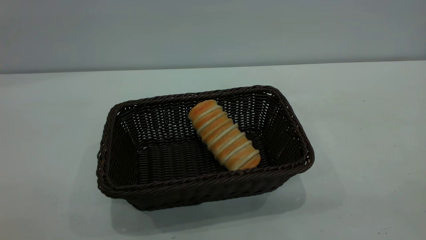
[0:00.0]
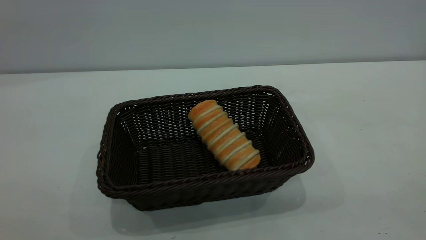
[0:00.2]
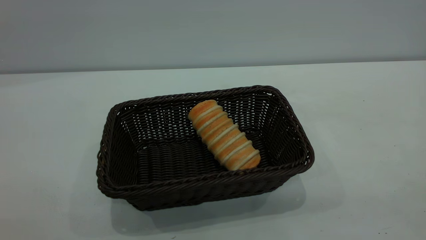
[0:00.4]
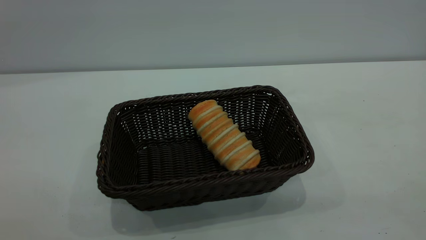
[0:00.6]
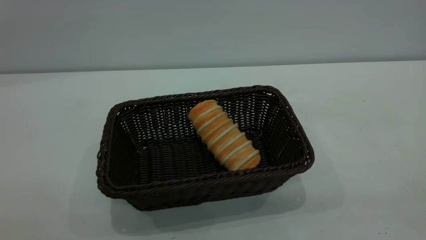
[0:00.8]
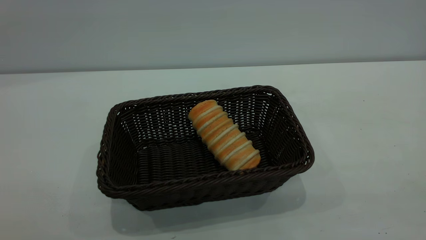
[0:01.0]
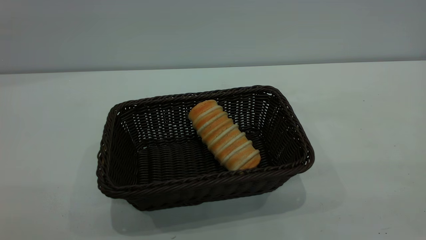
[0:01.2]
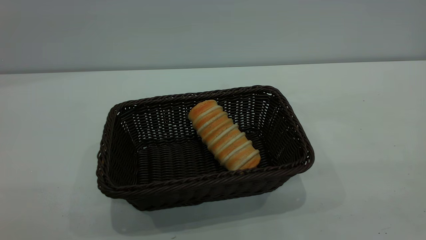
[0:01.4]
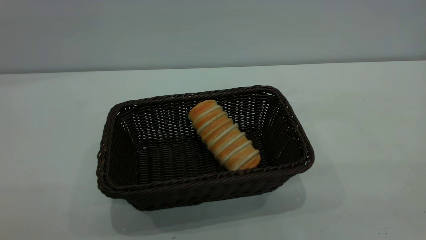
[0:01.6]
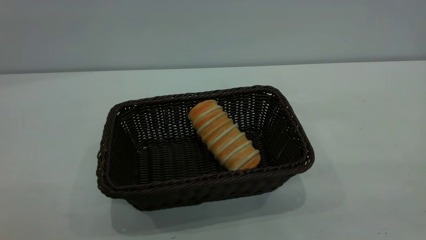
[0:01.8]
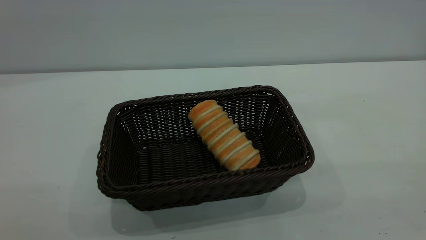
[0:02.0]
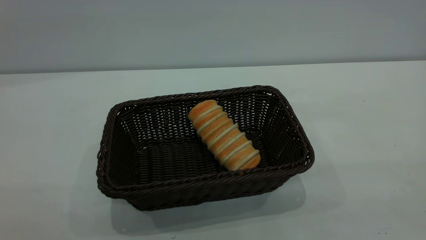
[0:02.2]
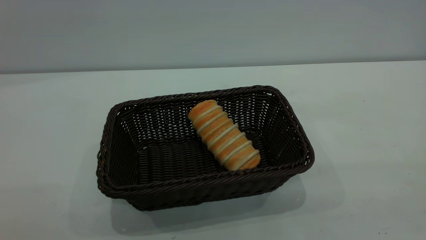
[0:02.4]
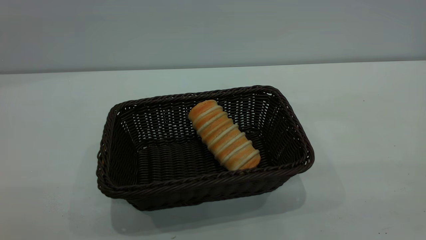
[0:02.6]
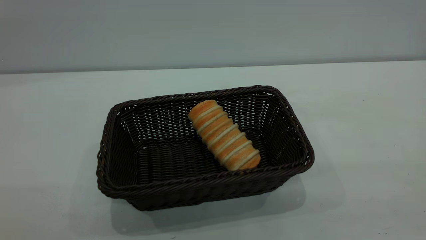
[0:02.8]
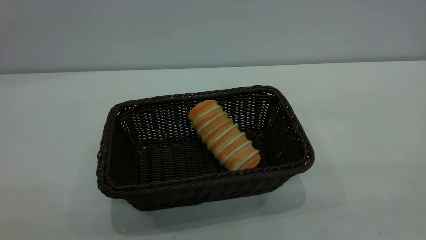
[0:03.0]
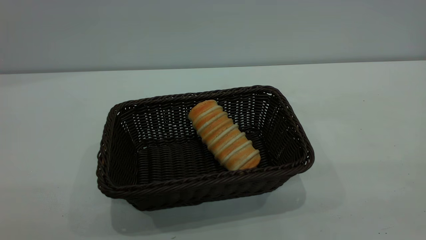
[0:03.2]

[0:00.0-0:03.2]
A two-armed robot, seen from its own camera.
Task of the whole recording: One hand grasps the black basket and places it in the middle of the table, while the other hand picks up the long bread and puts it into the black basket.
0:01.6 to 0:03.2: The two grippers keep their place.

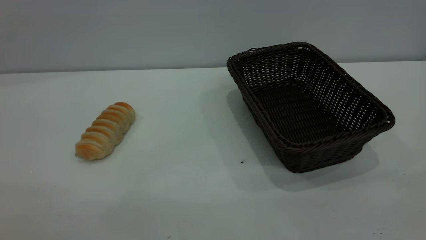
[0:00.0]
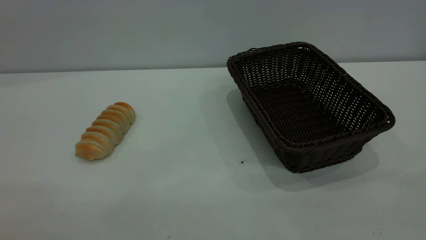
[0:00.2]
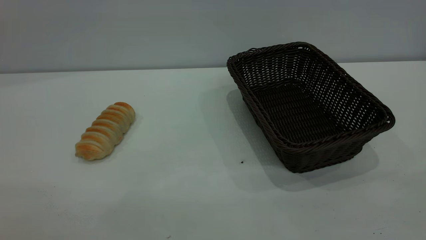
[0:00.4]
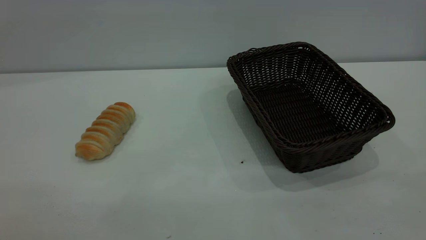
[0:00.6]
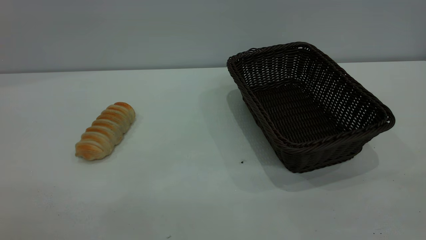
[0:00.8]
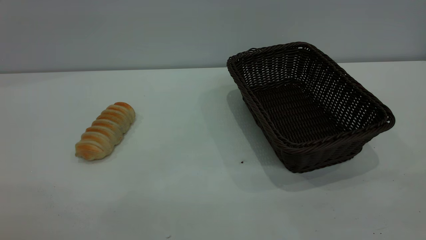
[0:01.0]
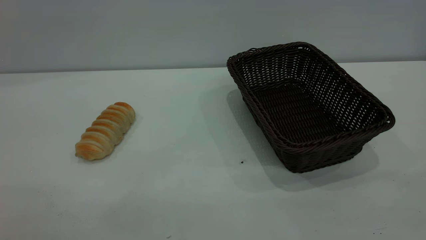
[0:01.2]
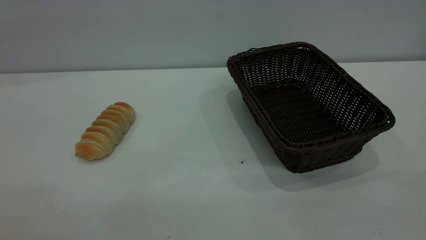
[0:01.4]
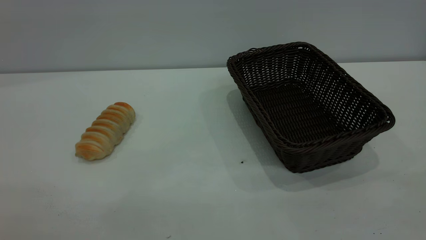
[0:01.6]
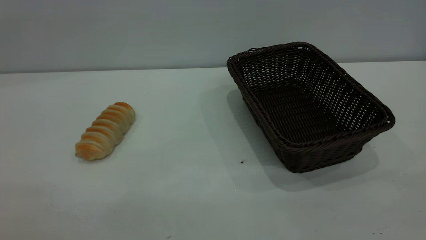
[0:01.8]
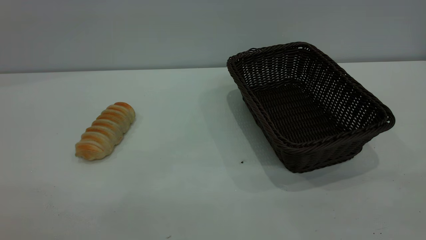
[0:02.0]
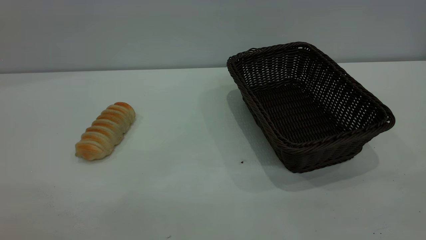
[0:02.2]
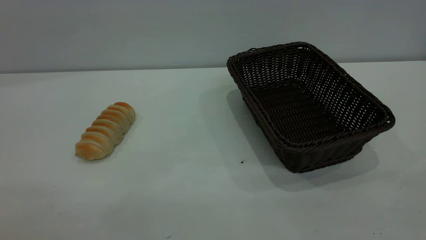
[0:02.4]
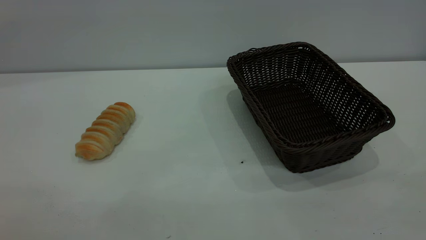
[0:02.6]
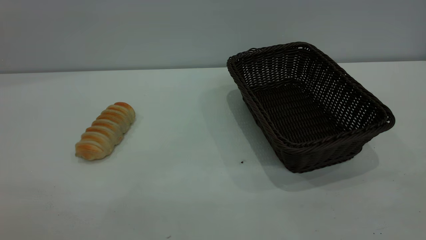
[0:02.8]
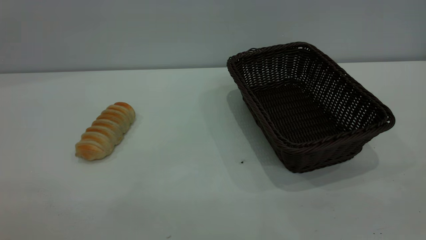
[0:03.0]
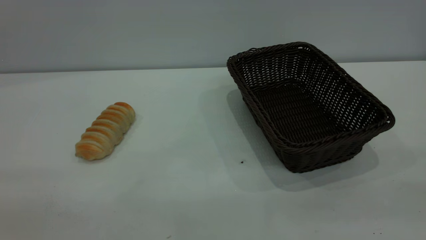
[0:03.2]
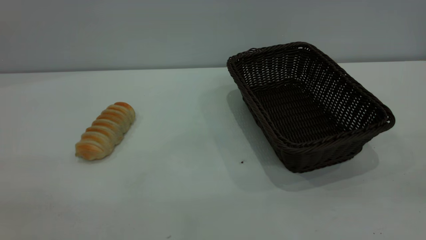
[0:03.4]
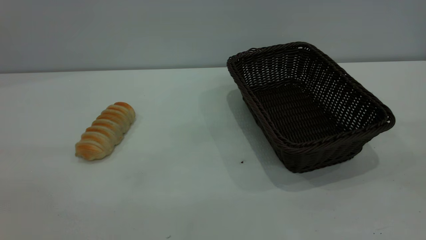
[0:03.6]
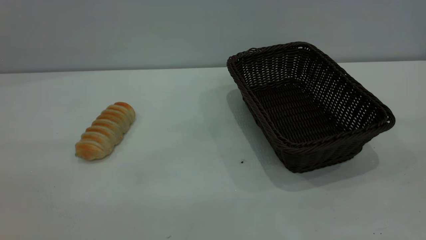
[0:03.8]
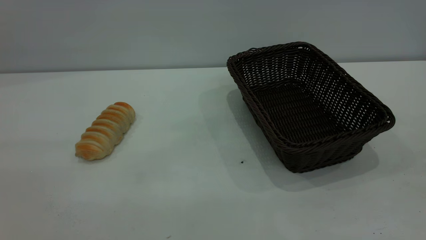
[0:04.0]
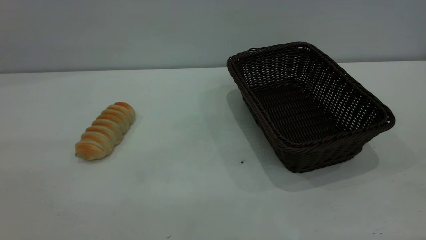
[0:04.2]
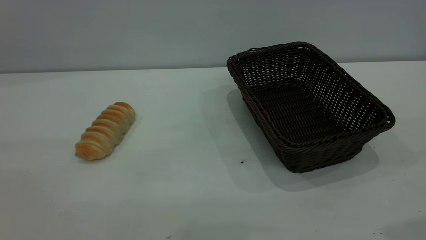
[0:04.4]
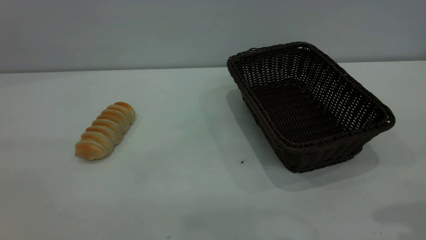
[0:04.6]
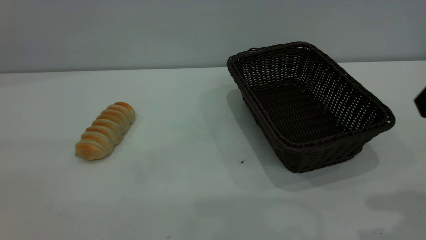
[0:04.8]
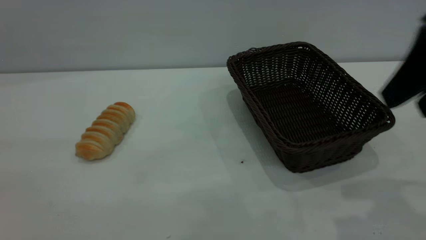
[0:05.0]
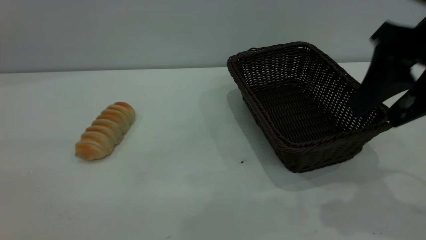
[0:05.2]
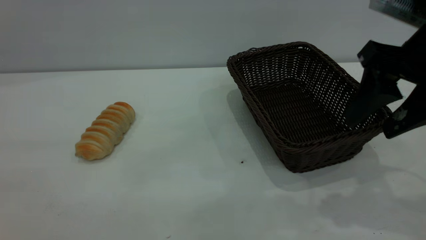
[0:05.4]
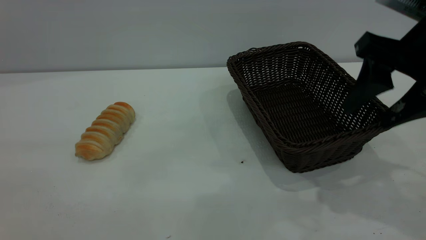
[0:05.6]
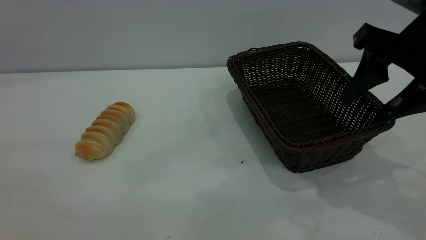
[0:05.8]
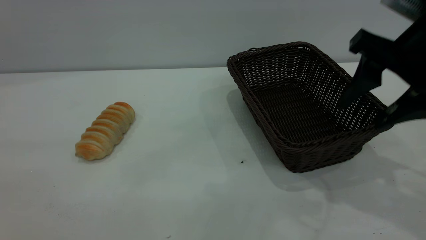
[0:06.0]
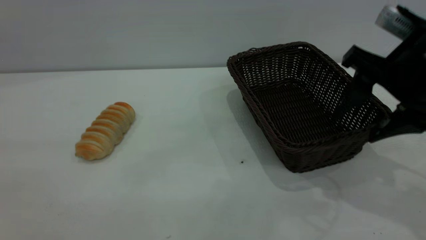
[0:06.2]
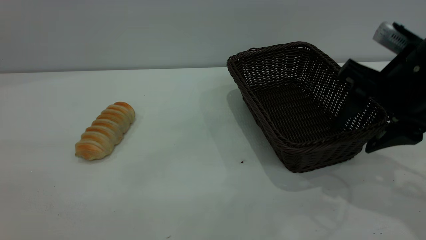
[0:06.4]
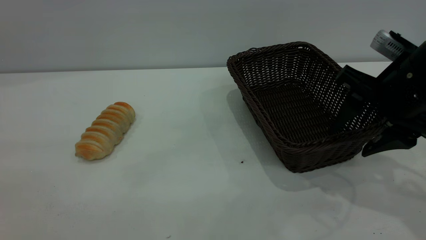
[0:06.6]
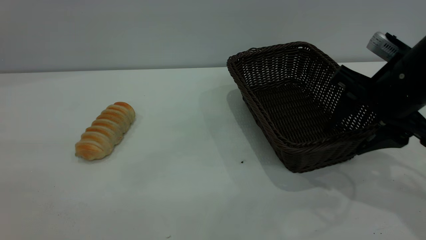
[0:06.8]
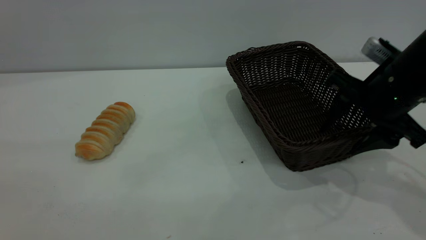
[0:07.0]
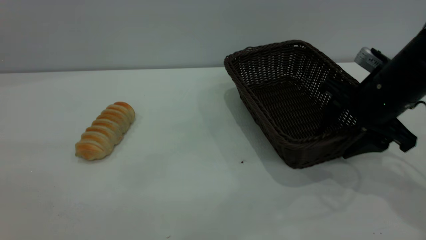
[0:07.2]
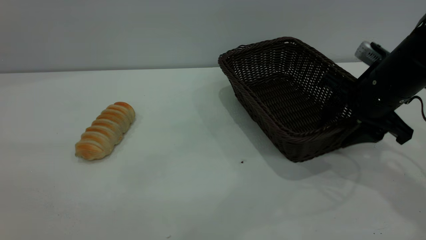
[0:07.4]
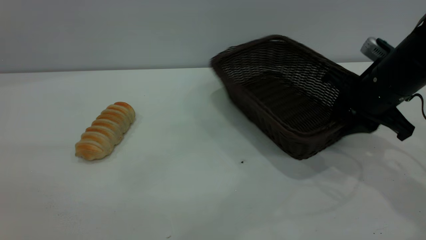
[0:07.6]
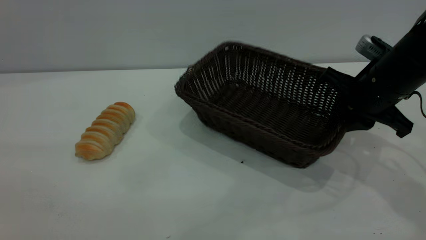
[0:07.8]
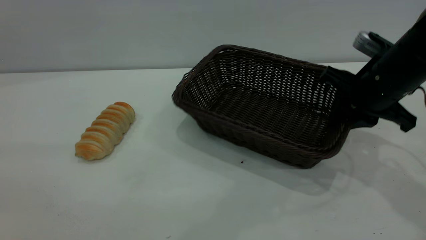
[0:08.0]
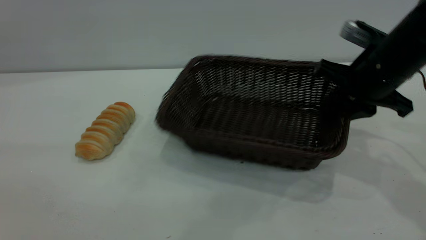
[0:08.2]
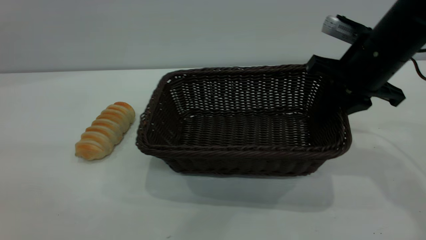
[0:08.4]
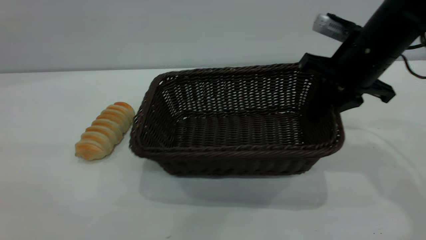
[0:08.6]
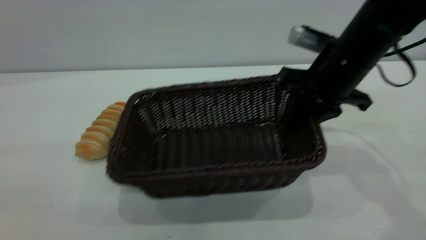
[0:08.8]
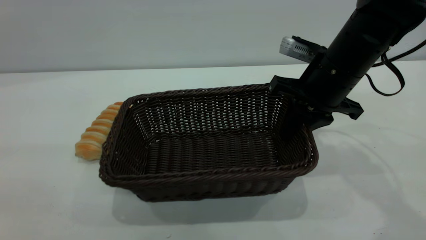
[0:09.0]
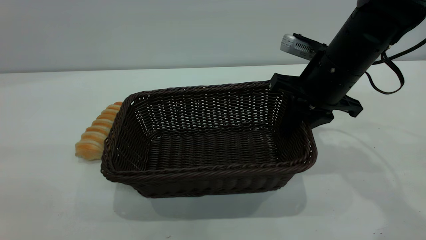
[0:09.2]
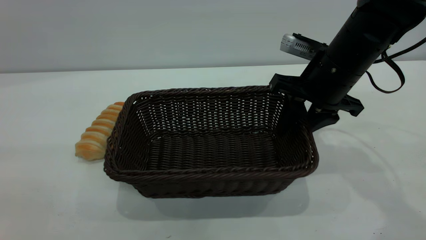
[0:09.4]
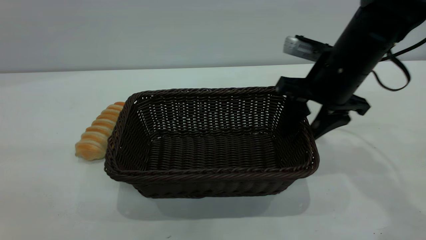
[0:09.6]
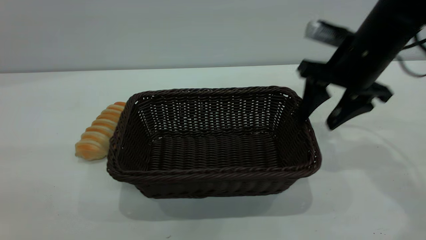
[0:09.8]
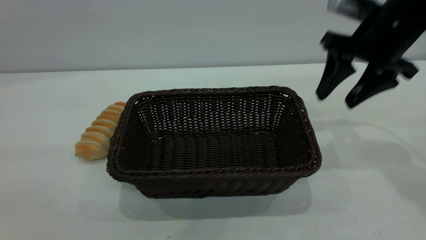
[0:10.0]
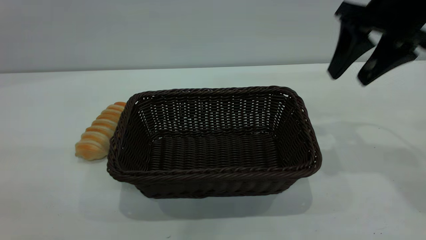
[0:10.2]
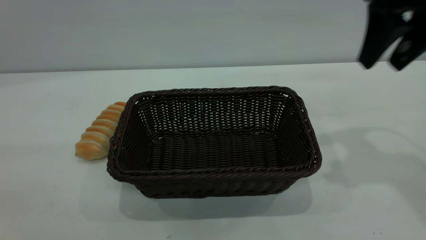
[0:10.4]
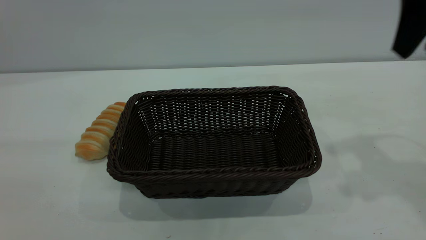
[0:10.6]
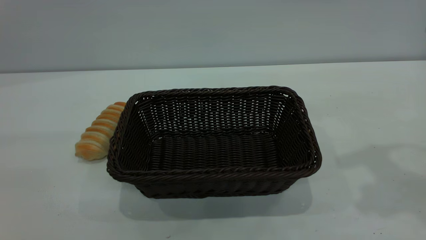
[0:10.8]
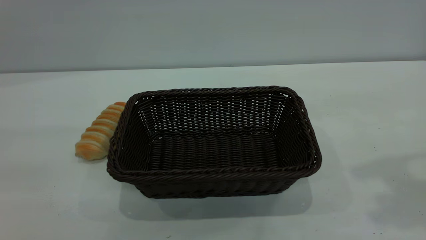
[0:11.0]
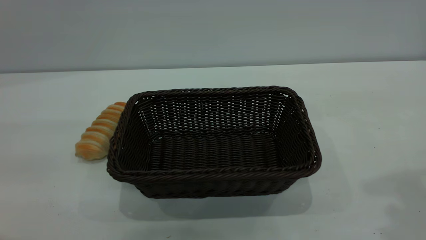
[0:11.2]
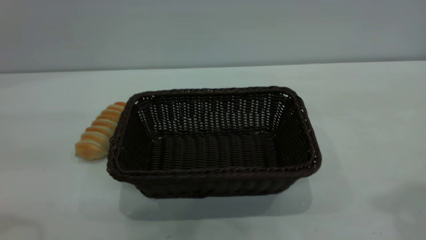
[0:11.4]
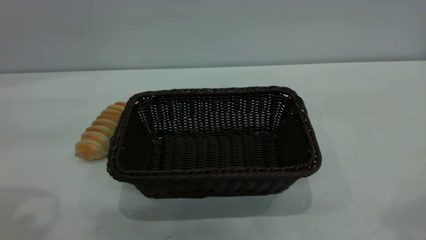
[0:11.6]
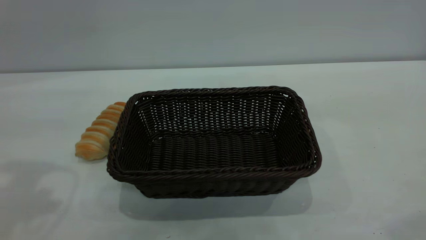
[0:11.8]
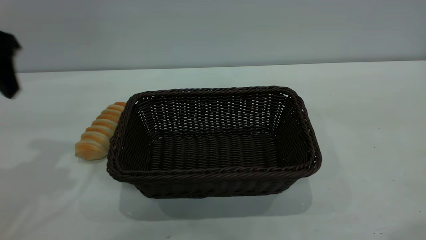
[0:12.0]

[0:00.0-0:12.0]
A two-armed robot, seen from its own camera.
Task of the whole recording: One hand grasps the black basket and places it in the middle of the table, while the other hand picks up the long bread and puts it into the black basket.
Step, 0:00.0 to 0:09.8: Move the basket to the center of view.
0:00.0 to 0:01.6: Both grippers stay about where they are.
0:04.4 to 0:06.0: The right gripper is displaced forward and downward by approximately 15 cm.
0:06.0 to 0:07.6: The right gripper moves downward and forward, some 10 cm, and closes up.
0:07.6 to 0:09.0: The right gripper is displaced to the left by roughly 5 cm.
0:09.0 to 0:10.4: The right gripper heads upward and to the right, covering approximately 15 cm, and opens up.
0:10.4 to 0:12.0: The right gripper moves backward and upward, approximately 25 cm, while the left gripper goes roughly 30 cm forward.

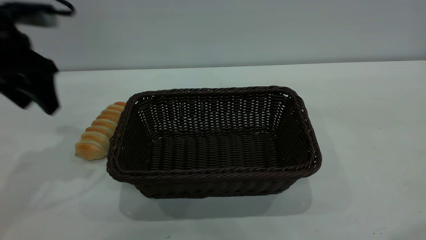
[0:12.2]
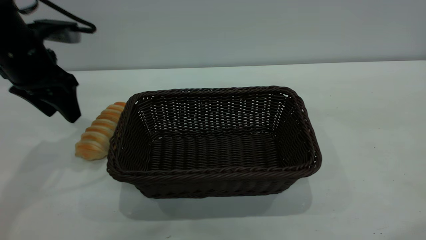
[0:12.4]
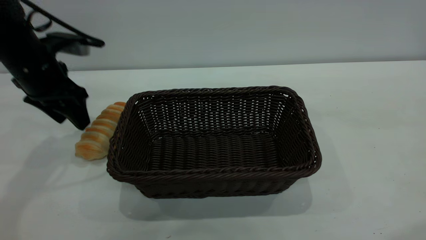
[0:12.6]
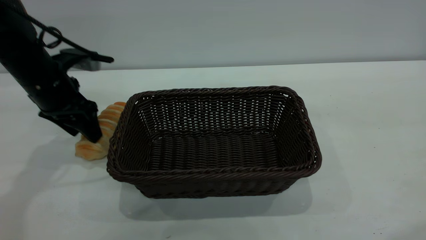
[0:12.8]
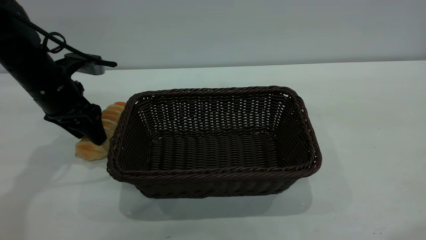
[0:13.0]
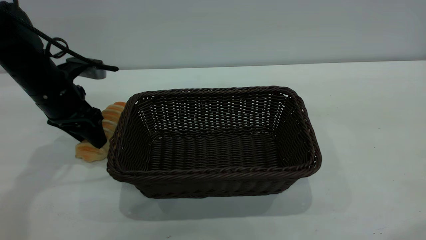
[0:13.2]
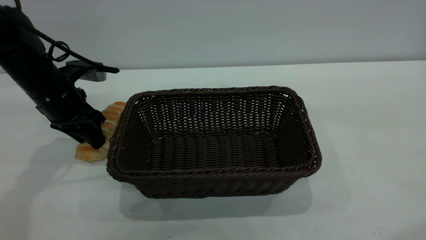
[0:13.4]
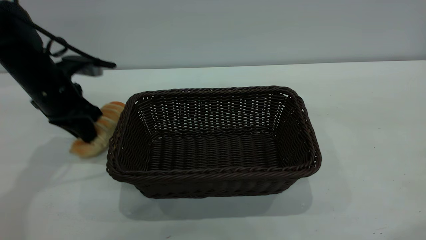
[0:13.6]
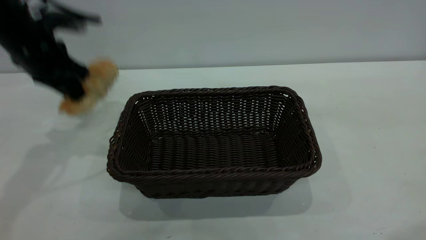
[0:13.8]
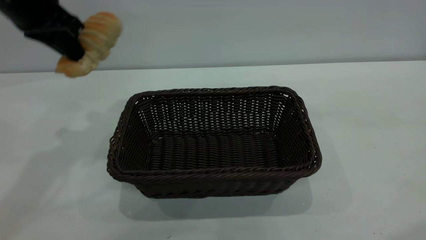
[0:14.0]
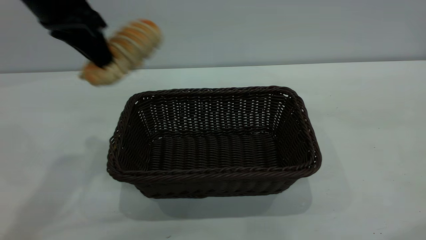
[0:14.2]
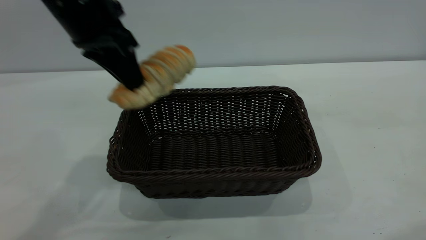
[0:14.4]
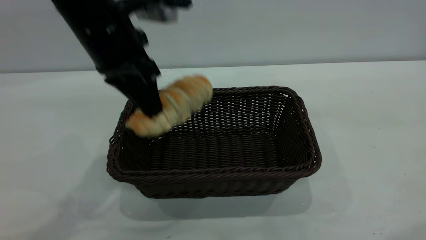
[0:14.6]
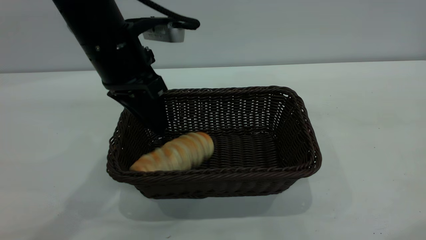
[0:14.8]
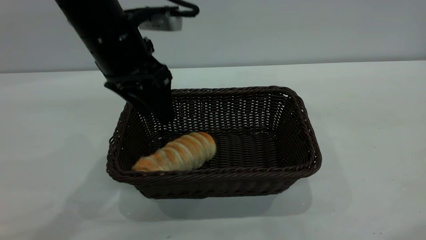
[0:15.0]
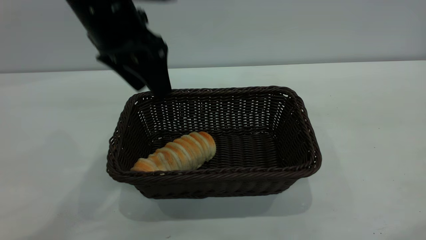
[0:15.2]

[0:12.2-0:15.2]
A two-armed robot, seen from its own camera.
Task of the whole recording: One hand grasps the black basket and places it in the middle of the table, while the other hand picks up the long bread and puts it into the black basket.
0:12.2 to 0:13.8: The left gripper goes downward and returns, roughly 10 cm each way, and closes.
0:13.8 to 0:15.2: The left gripper is displaced to the right by some 15 cm, and opens its fingers.
